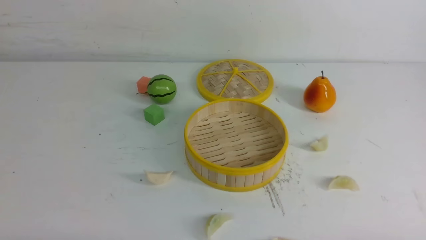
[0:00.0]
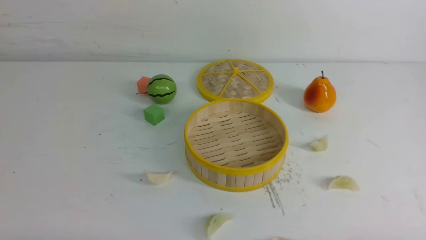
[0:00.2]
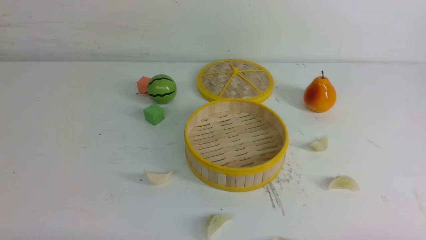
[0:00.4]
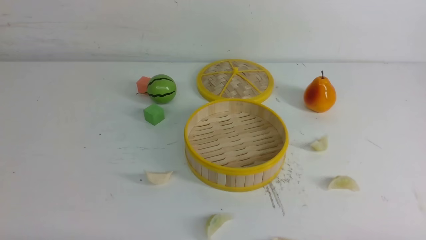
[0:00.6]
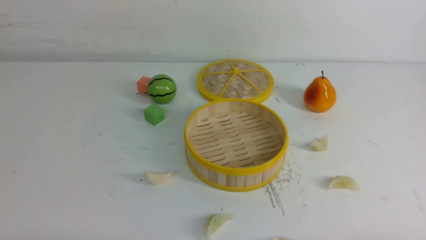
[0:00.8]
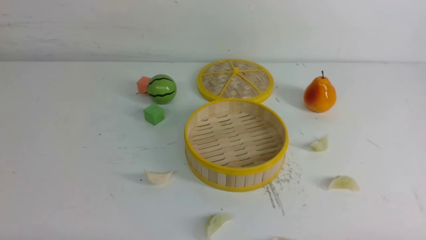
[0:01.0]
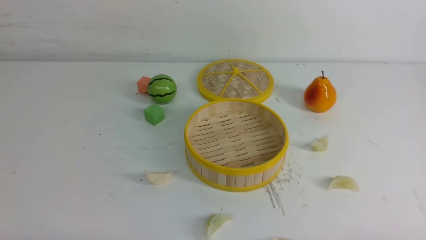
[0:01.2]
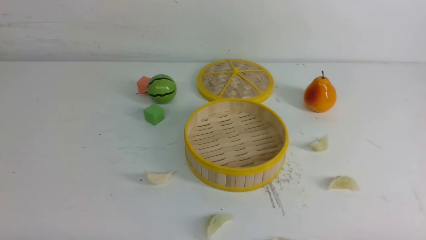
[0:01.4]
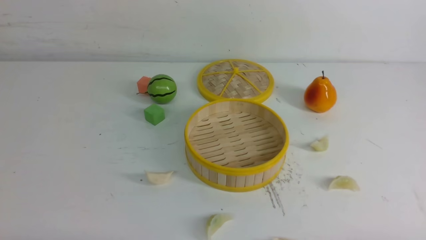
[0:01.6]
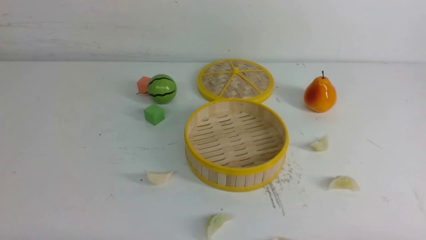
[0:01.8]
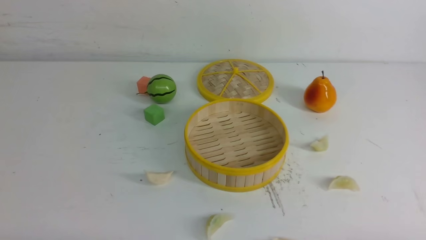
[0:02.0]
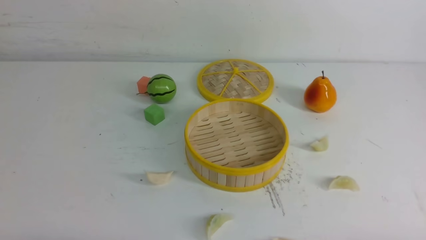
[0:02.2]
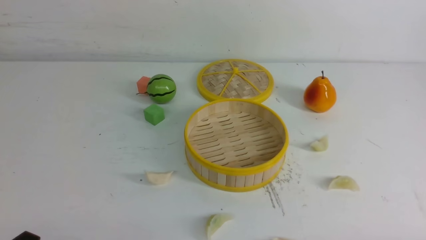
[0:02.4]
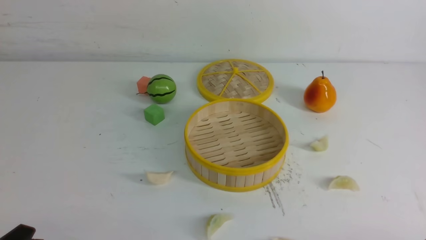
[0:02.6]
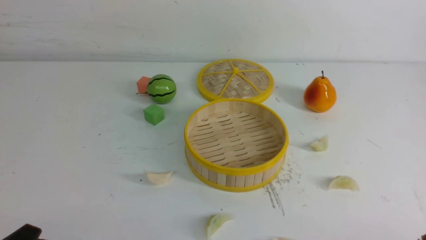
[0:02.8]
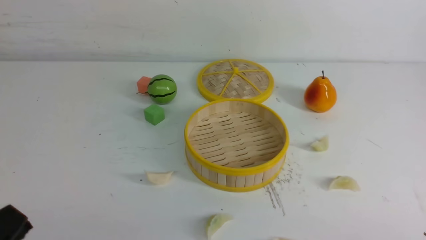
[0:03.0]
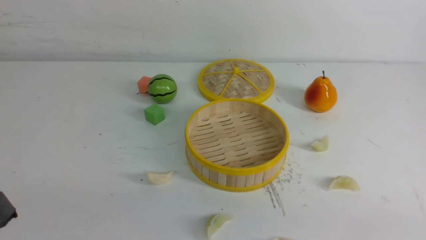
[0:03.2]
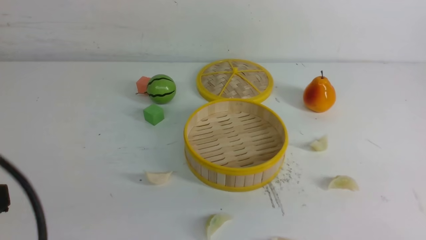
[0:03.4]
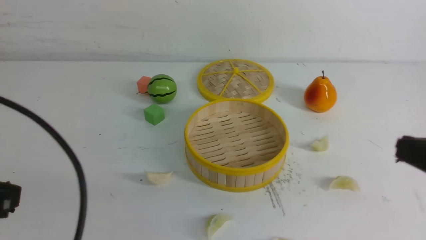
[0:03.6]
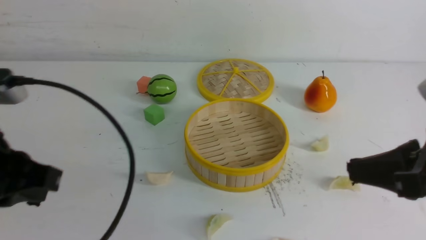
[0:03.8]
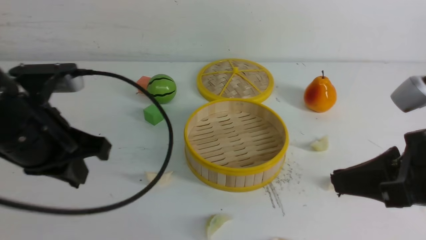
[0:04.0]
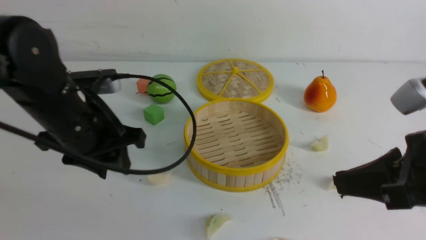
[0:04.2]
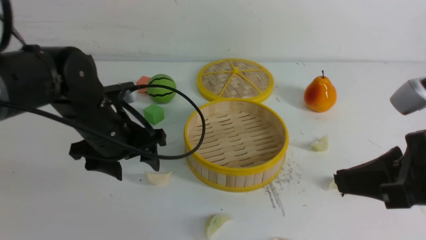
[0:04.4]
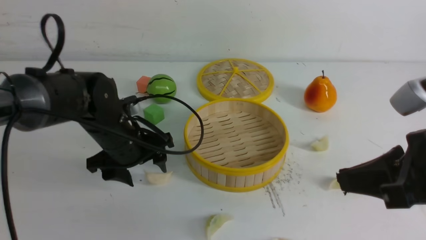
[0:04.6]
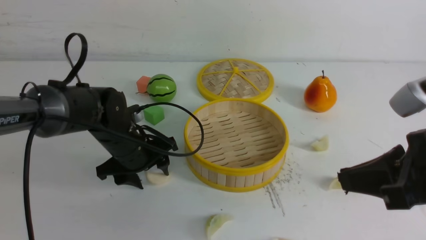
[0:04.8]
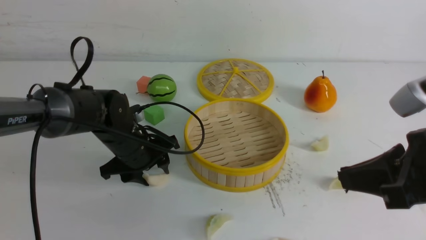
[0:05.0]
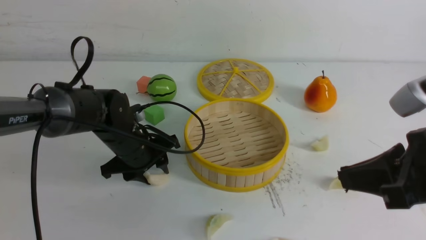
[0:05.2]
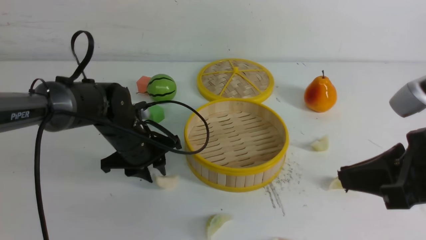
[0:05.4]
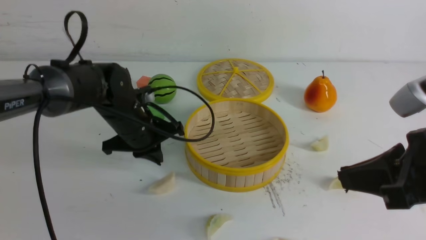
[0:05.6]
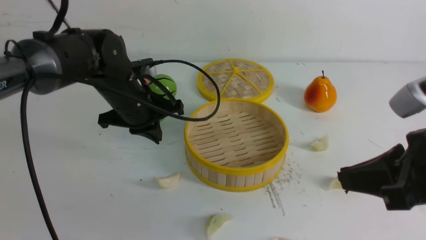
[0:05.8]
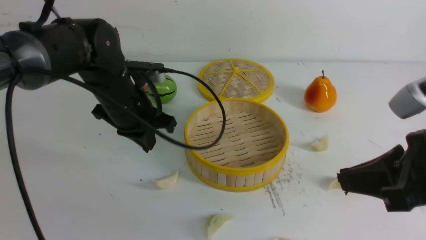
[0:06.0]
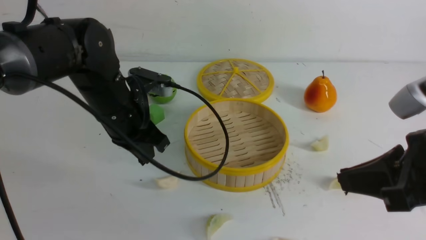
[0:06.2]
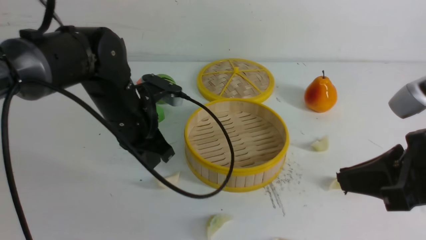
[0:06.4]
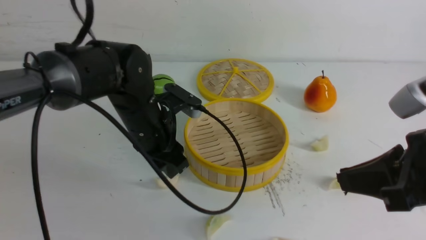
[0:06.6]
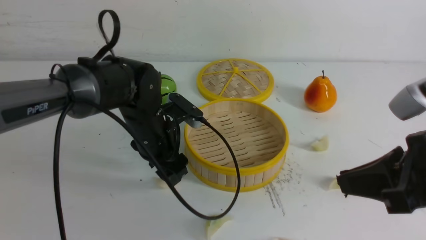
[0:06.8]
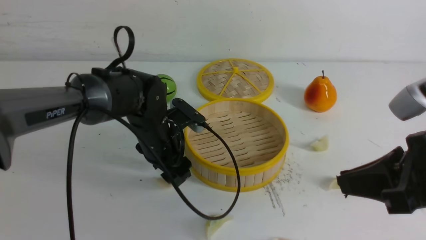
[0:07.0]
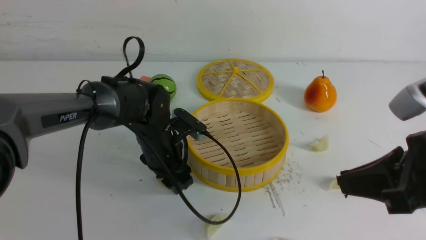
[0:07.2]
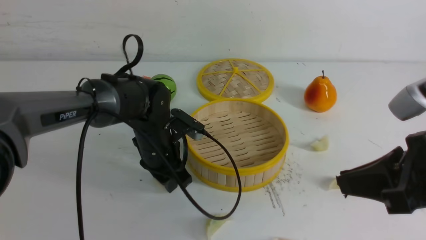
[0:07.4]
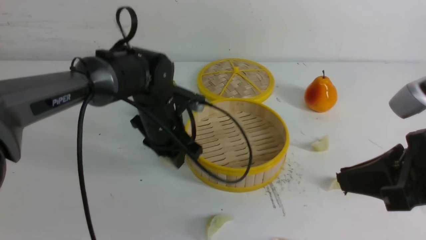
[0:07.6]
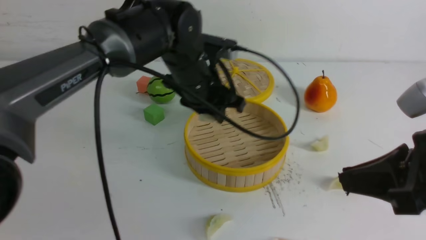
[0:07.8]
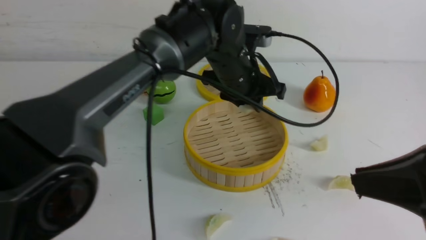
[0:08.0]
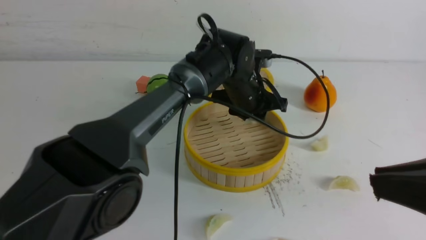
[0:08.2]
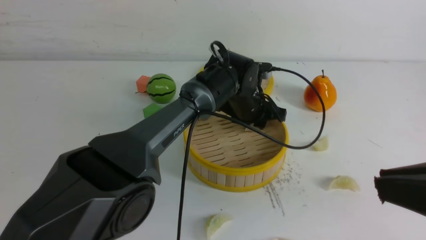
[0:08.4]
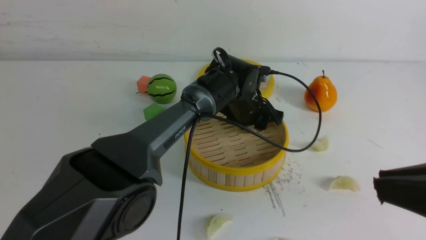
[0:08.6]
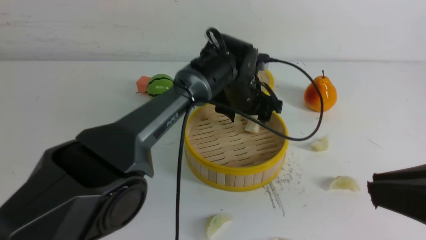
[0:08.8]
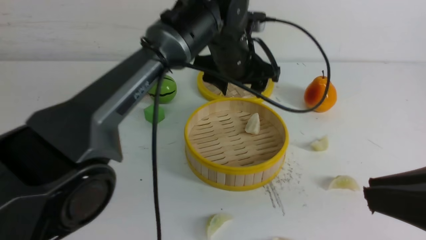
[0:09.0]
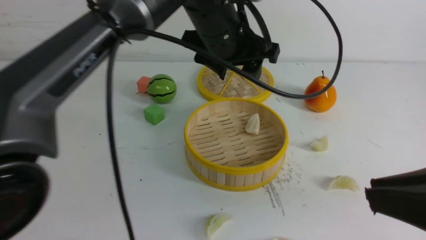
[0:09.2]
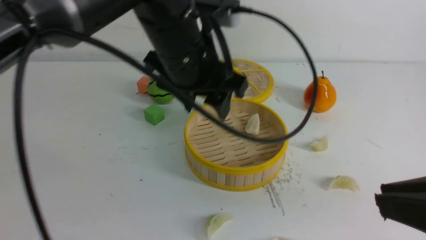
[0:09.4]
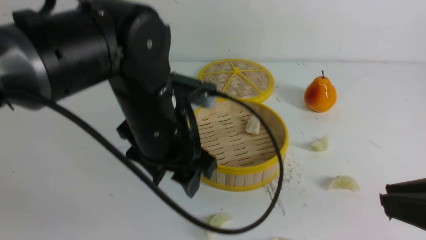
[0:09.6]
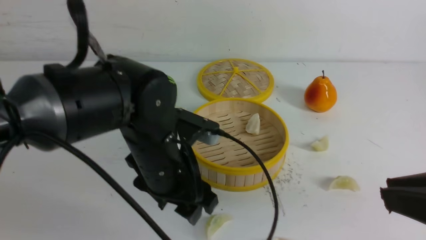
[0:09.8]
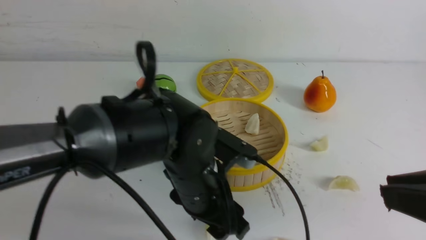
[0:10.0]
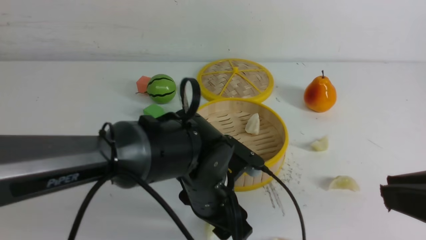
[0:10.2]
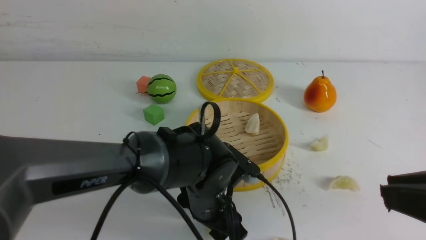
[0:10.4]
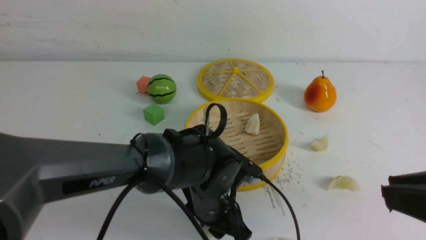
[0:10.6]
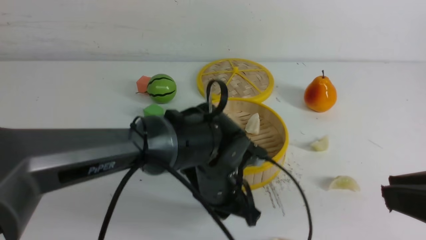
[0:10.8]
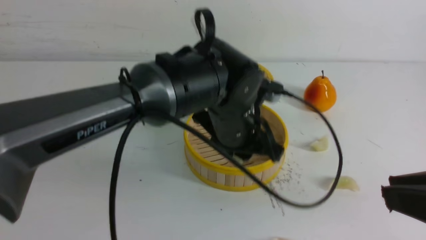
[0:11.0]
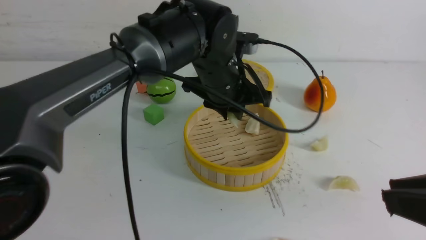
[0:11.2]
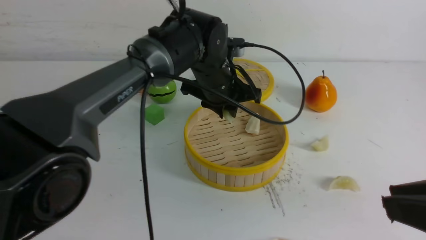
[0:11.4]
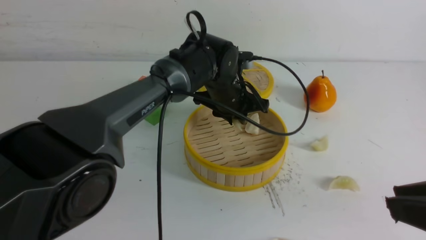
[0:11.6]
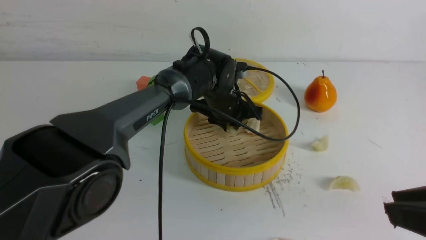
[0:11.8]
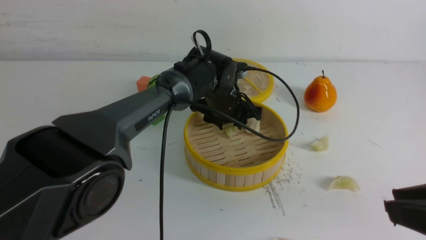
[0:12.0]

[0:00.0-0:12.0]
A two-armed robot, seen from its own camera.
Task of the whole recording: put the dumplings into the steamer on the white table.
Step, 0:00.0 to 0:07.4: use the left arm to grab a dumpling.
Step, 0:07.6 to 0:08.8: use the left arm to put the dumpling into the steamer.
Step, 0:09.0 to 0:10.6: use the left arm to grab a dumpling.
0:00.0 to 0:01.6: The two grippers keep their place.
0:01.6 to 0:03.0: The left gripper heads upward, covering some 10 cm.
0:03.0 to 0:04.4: The right gripper goes approximately 20 cm forward, upward and to the left, and closes up; the left gripper heads forward, covering approximately 30 cm, and opens up.
0:04.4 to 0:06.0: The left gripper moves about 10 cm downward and comes back, and closes up.
0:06.0 to 0:07.6: The left gripper heads to the right, covering roughly 5 cm, goes downward and returns, some 10 cm each way, and opens up.
0:07.6 to 0:09.0: The right gripper moves backward, some 5 cm, while the left gripper goes roughly 15 cm upward and to the right, and opens.
0:09.0 to 0:10.4: The left gripper travels downward and backward by approximately 20 cm.
0:10.4 to 0:12.0: The left gripper moves forward, roughly 20 cm, and closes, then reopens.

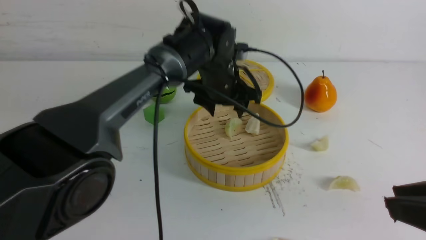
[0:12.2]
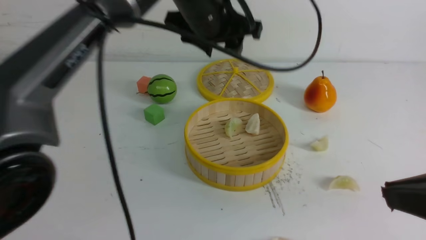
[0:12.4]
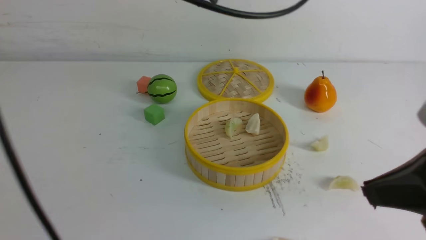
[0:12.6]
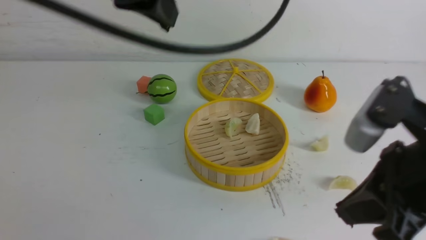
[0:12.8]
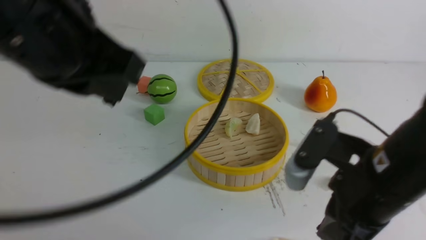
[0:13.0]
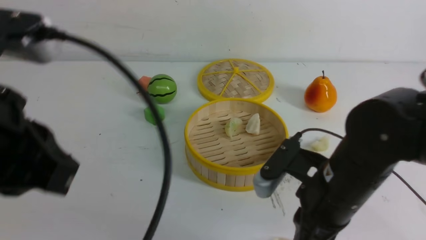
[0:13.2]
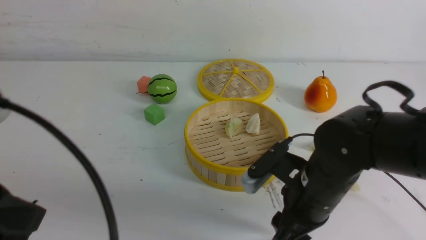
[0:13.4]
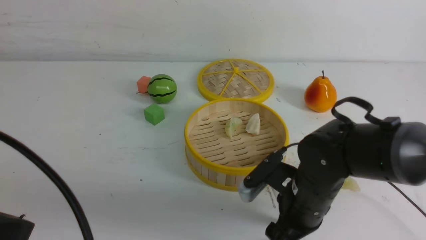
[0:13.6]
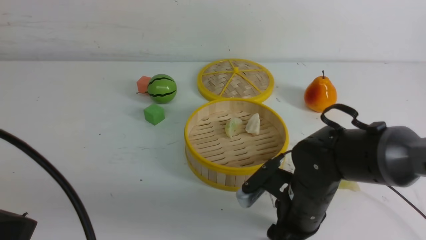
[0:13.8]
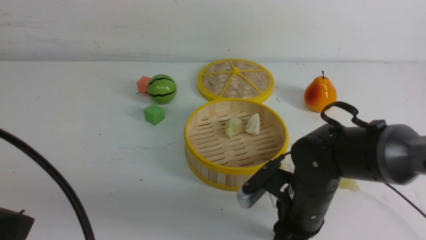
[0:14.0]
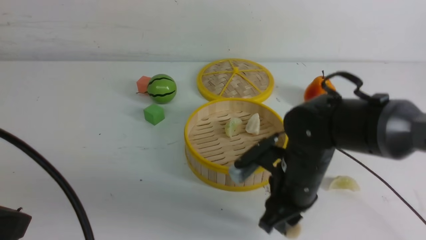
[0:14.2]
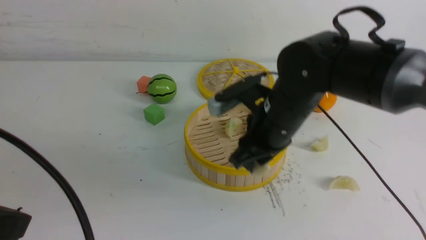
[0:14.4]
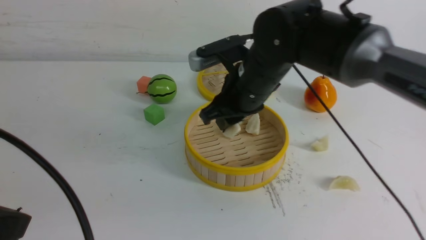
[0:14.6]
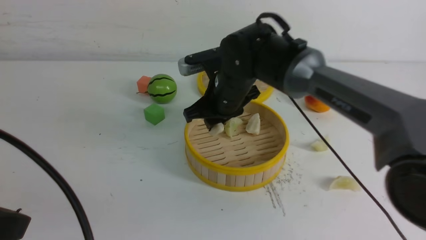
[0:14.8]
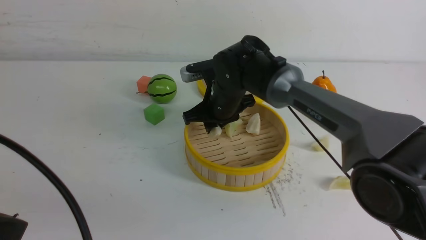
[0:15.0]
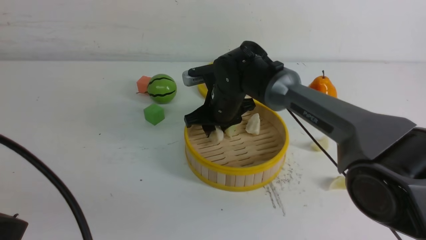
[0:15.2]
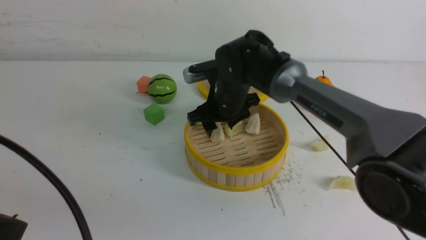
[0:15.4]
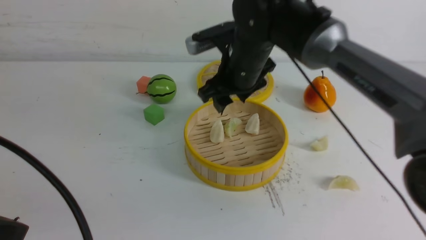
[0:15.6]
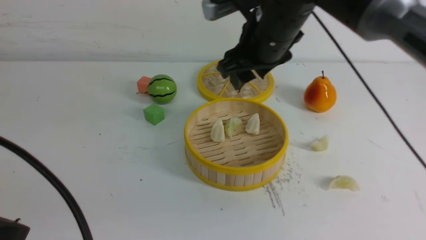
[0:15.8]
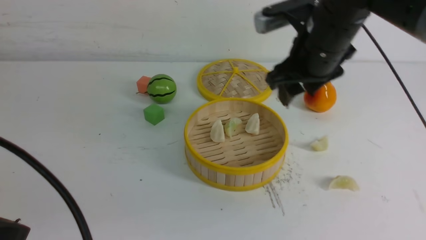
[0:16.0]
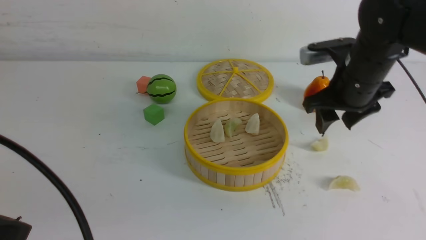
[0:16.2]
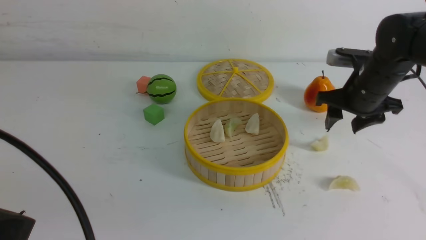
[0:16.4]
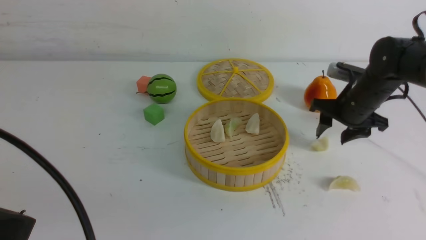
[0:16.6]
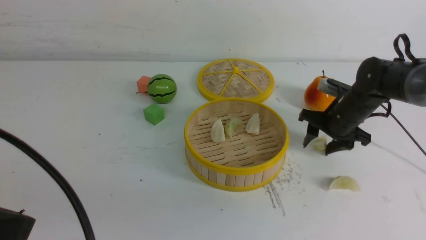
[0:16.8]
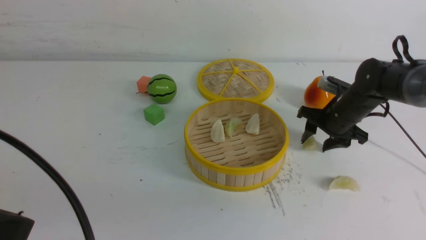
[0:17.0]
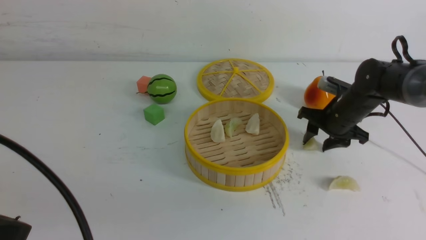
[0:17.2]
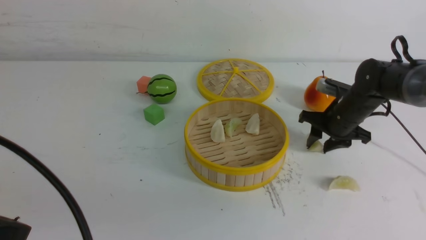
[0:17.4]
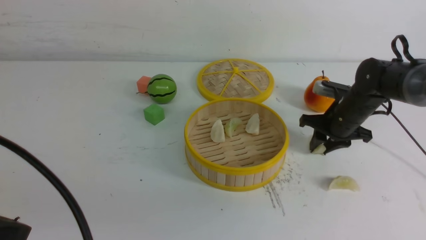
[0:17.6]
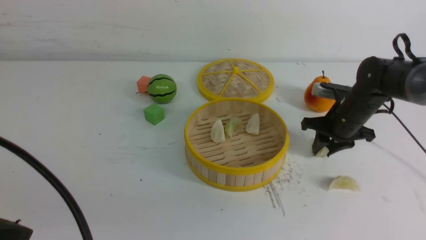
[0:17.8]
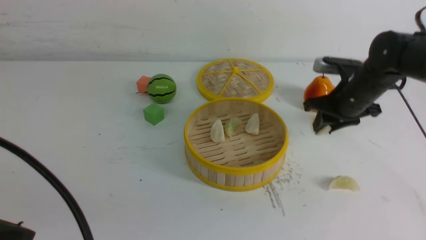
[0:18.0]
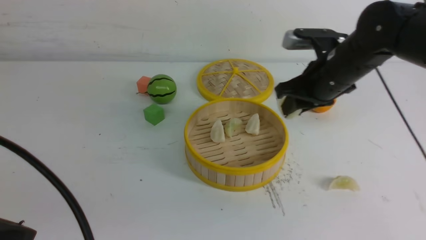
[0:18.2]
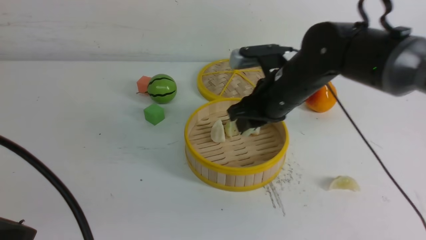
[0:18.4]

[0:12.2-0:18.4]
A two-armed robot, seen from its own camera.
Task of the whole recording: put the dumplings into the steamer on the white table.
Step, 0:12.4 to 0:14.0: use the right arm to grab a dumpling.
Step, 0:14.2 to 0:15.6: use the right arm to put the dumpling into the steamer.
Step, 0:15.8 to 0:17.8: use the right arm to grab a dumpling.
0:12.2 to 0:13.8: The right gripper shifts some 30 cm downward, forward and to the left, and opens up. Meanwhile the left gripper heads backward and to the left, covering roughly 40 cm, and closes its fingers.
0:13.8 to 0:15.4: The right gripper goes about 20 cm forward, upward and to the left, and closes, then opens again.
0:15.4 to 0:16.8: The right gripper is displaced to the right by approximately 20 cm.
0:16.8 to 0:18.4: The right gripper moves to the left, upward and backward, some 20 cm, and closes.
